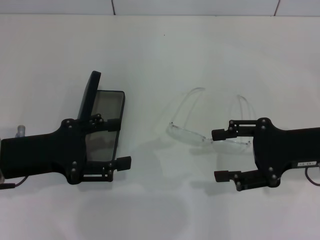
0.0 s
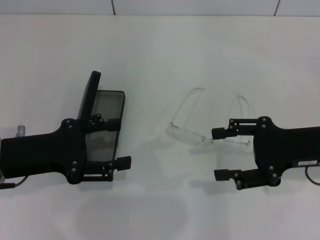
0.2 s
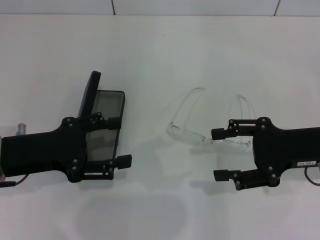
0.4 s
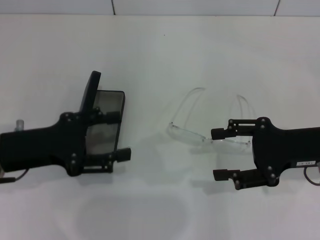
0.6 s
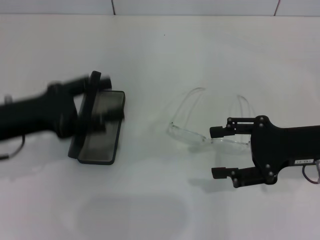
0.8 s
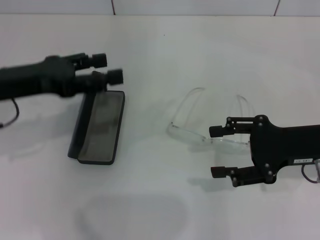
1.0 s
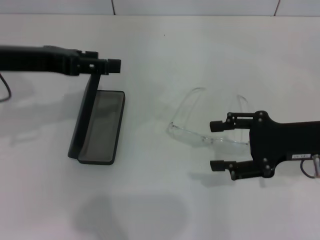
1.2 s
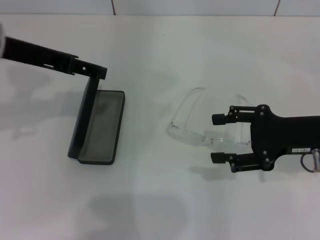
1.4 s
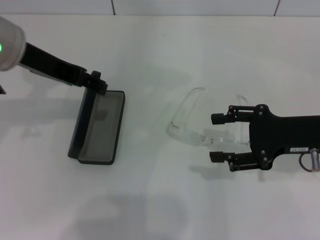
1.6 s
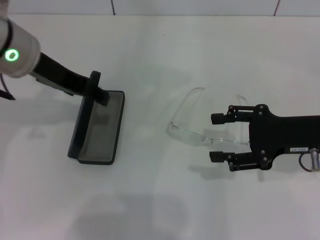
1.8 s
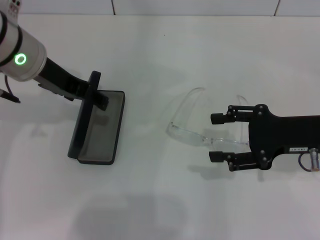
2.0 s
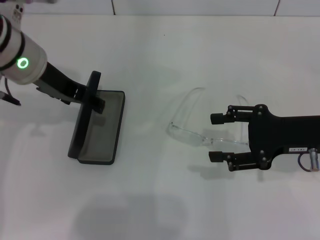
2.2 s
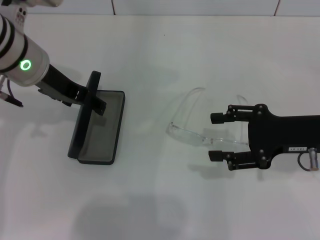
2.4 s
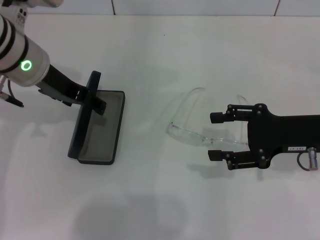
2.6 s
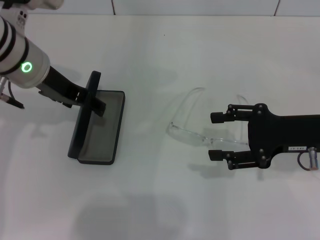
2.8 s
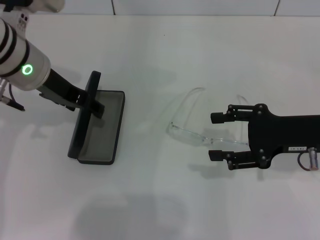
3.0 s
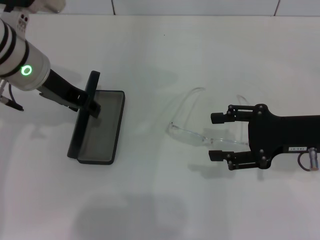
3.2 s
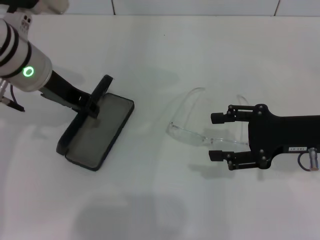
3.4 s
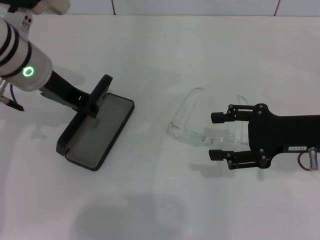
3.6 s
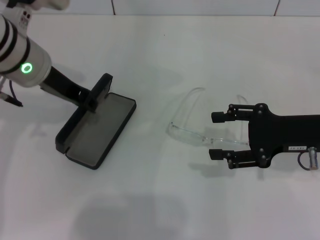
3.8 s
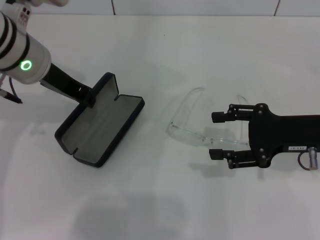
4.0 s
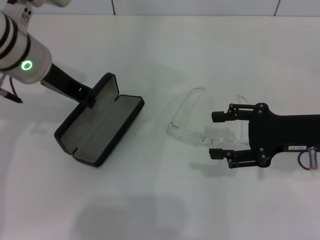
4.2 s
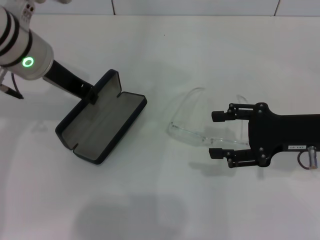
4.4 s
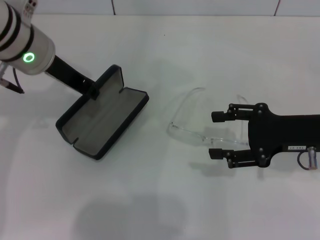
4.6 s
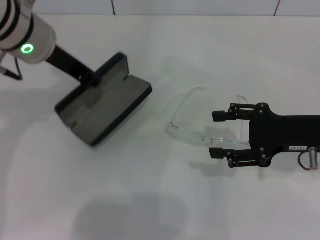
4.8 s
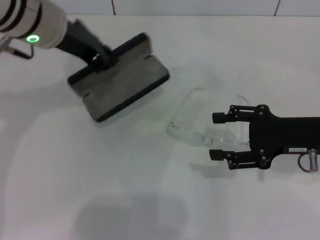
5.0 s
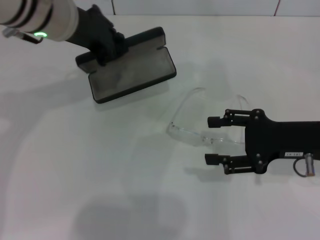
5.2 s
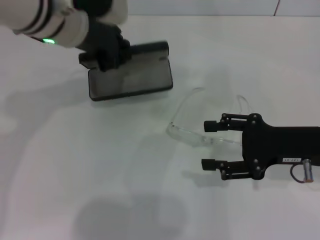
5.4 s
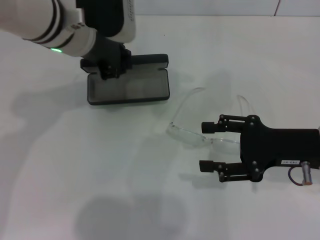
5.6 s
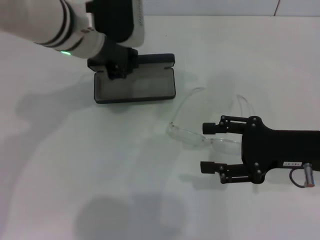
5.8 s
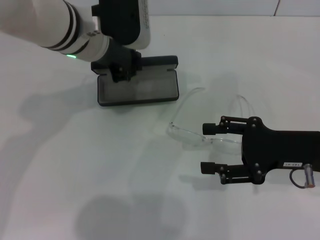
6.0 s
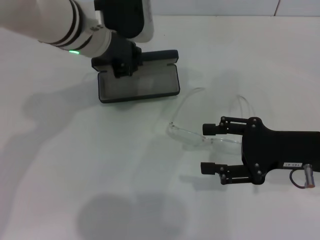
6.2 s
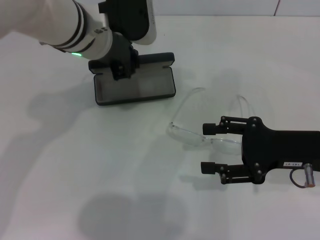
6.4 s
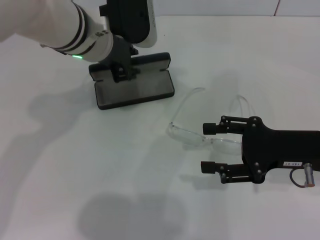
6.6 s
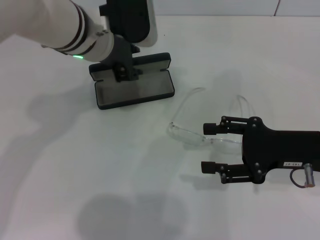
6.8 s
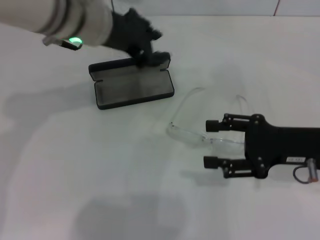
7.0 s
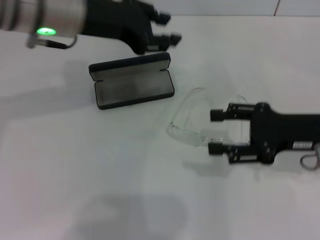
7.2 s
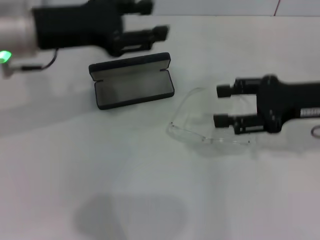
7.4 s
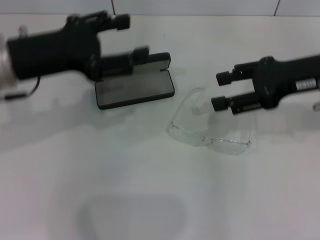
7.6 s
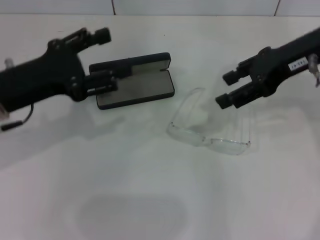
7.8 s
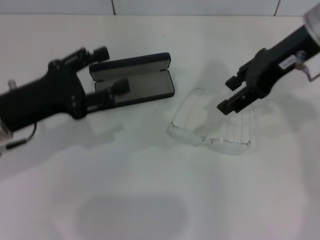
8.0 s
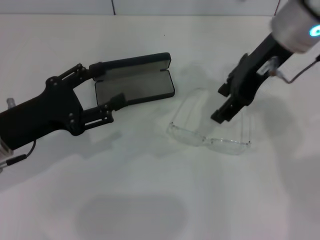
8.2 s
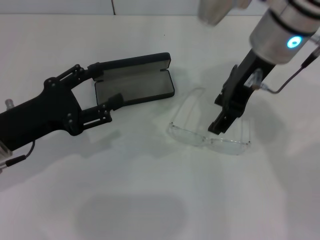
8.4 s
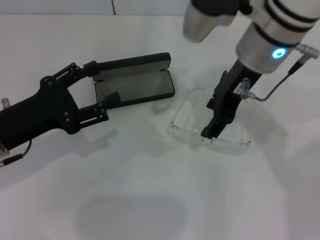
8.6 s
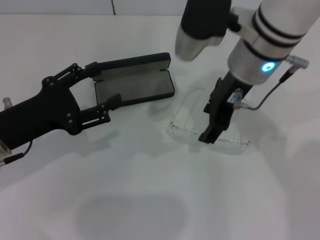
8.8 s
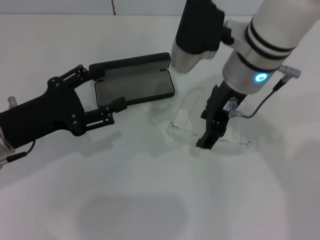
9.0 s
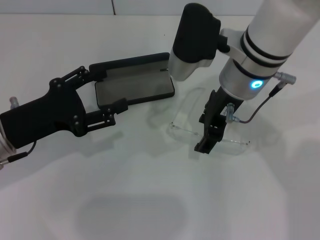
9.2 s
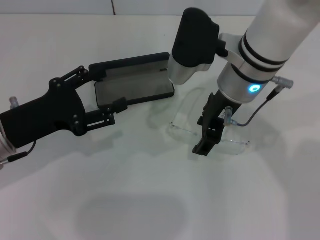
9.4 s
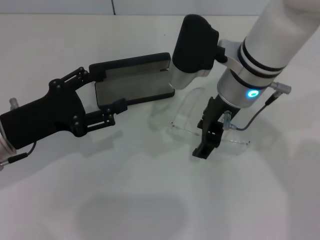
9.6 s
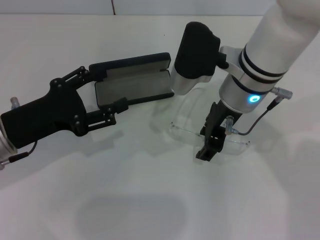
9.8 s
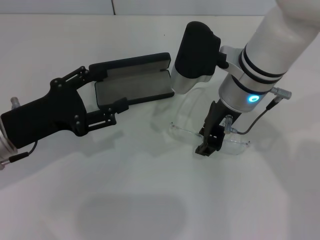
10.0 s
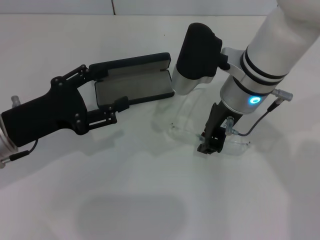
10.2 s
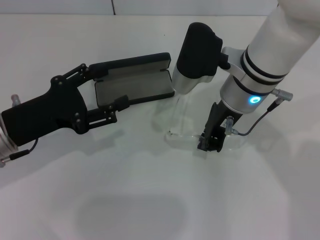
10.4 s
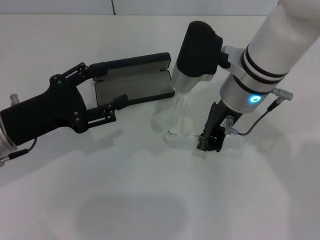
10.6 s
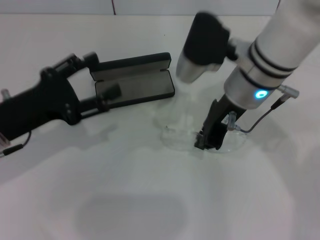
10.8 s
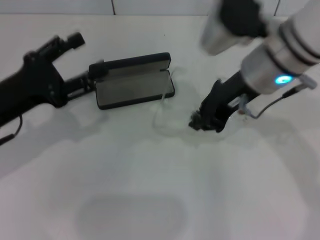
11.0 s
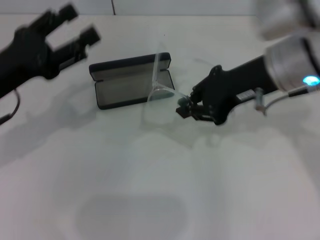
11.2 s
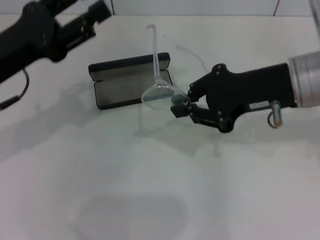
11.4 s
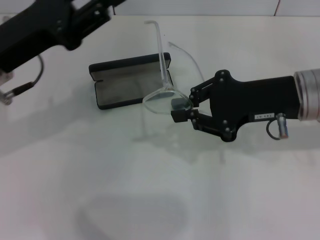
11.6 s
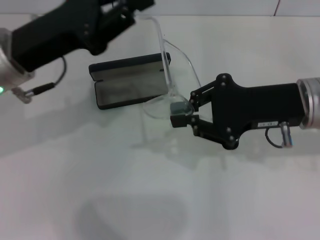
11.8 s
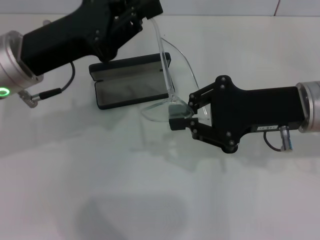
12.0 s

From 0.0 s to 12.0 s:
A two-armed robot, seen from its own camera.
Step, from 0.0 s to 4.0 s: Grab the glasses case with your left hand.
Step, from 4.4 s to 6.4 s: Place the glasses case in the center of the table with your left hand.
Step, from 6.8 s to 10.2 s: Grab the eyeglass frame with your right hand.
From 0.0 s to 1.6 s: The left gripper travels upward, forward and to the right by some 15 cm.
From 1.6 s to 3.0 s: The left gripper is displaced downward by roughly 5 cm.
From 3.0 s to 4.4 s: The left gripper closes.
From 4.4 s to 6.0 s: The left gripper is displaced to the right by roughly 5 cm.
From 6.0 s to 7.6 s: The right gripper heads upward and forward, covering about 10 cm; the left gripper moves to the left and backward, roughly 15 cm, and opens.
From 7.6 s to 9.0 s: The left gripper heads downward, covering about 10 cm. The right gripper shifts about 15 cm to the left.
From 9.0 s to 10.4 s: The right gripper closes up.
From 10.4 s to 12.0 s: The left gripper travels upward and to the right by some 10 cm, and closes its fingers. Meanwhile the right gripper goes about 10 cm to the right and backward.

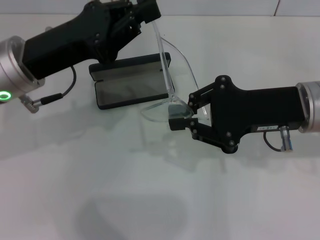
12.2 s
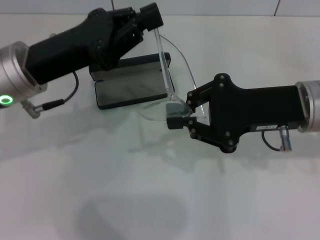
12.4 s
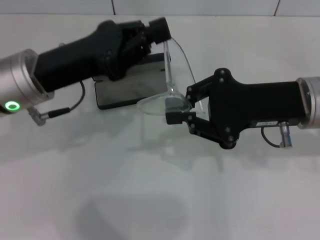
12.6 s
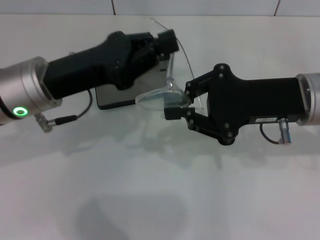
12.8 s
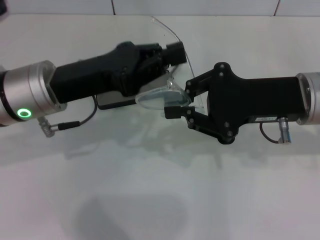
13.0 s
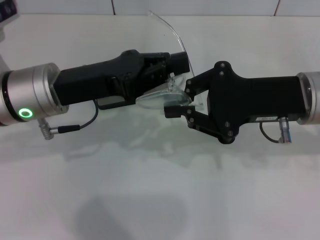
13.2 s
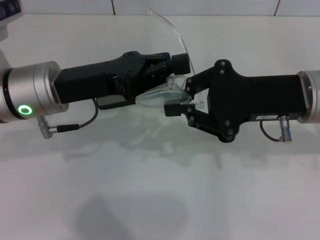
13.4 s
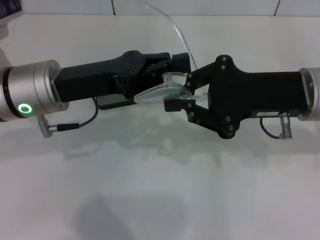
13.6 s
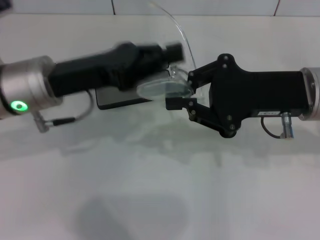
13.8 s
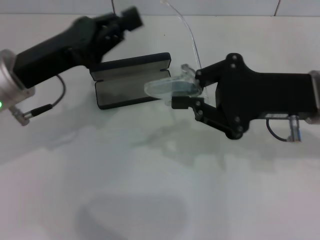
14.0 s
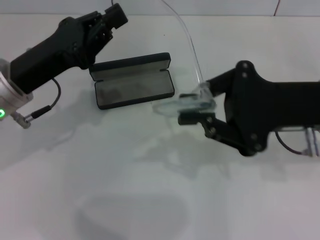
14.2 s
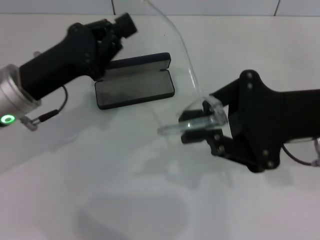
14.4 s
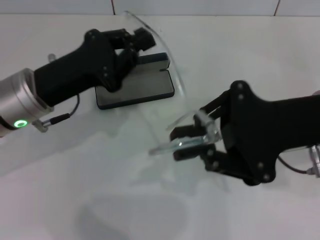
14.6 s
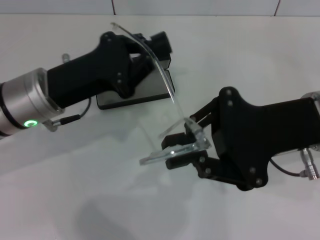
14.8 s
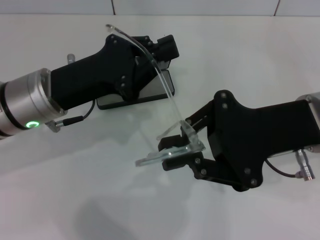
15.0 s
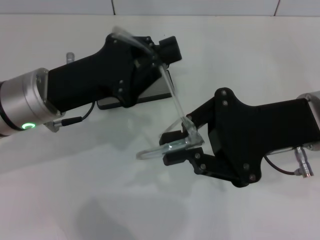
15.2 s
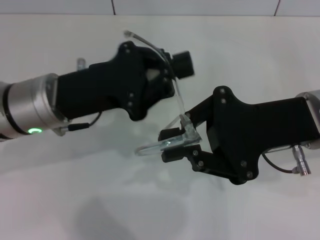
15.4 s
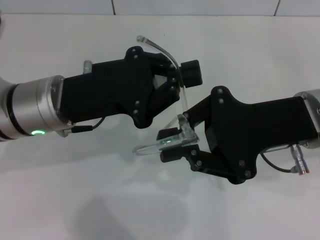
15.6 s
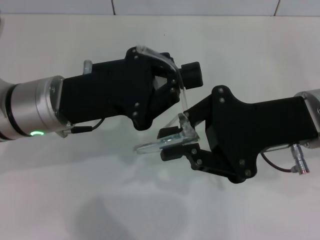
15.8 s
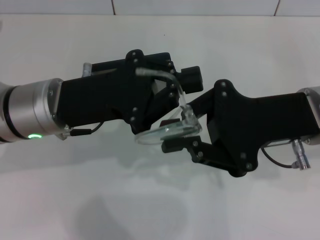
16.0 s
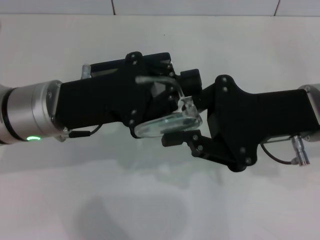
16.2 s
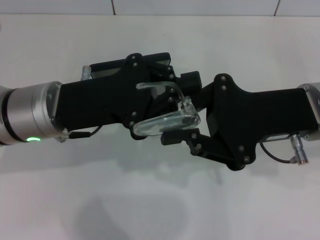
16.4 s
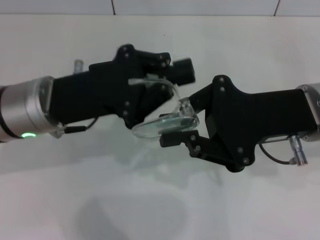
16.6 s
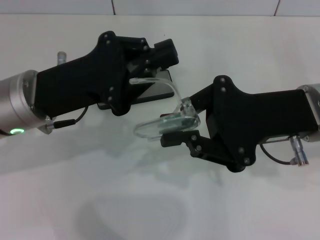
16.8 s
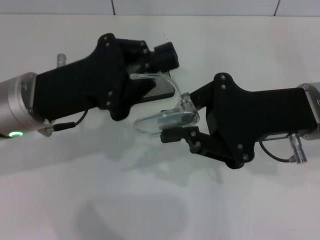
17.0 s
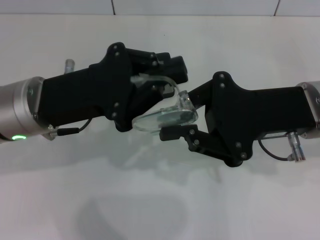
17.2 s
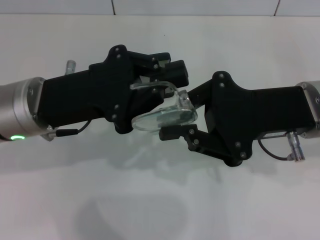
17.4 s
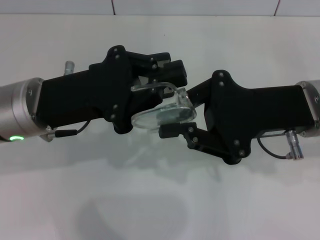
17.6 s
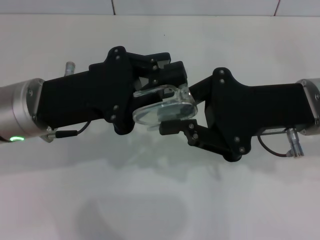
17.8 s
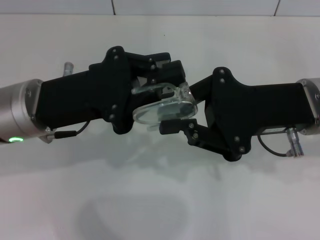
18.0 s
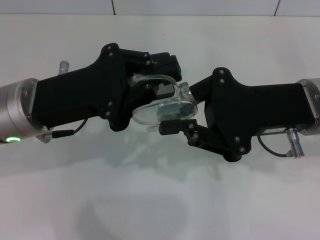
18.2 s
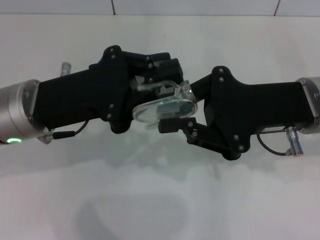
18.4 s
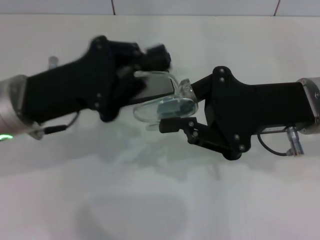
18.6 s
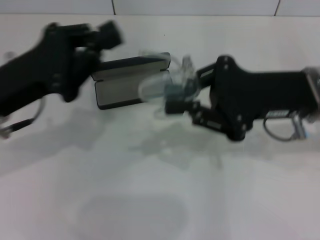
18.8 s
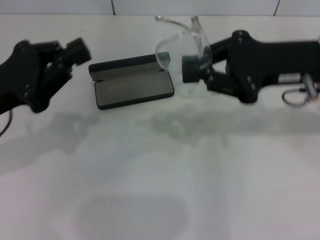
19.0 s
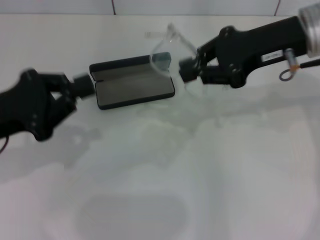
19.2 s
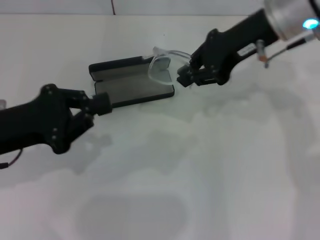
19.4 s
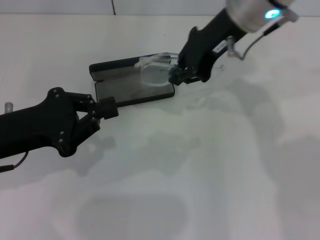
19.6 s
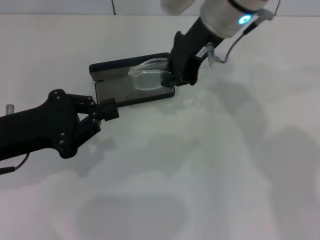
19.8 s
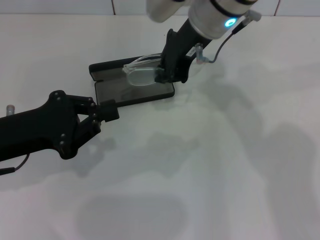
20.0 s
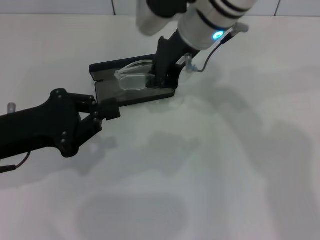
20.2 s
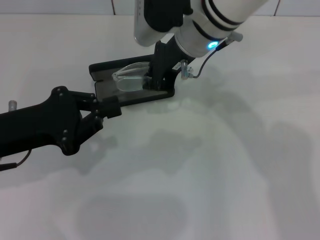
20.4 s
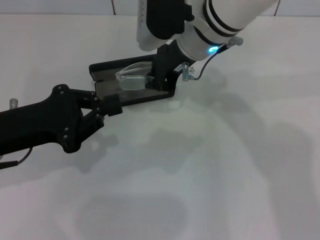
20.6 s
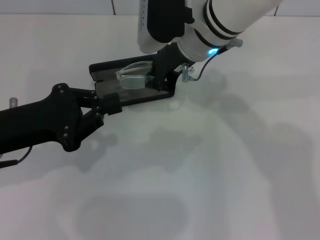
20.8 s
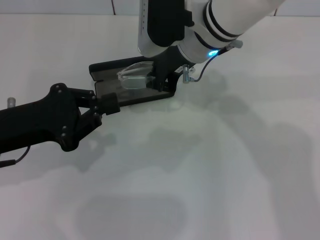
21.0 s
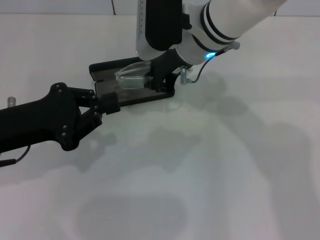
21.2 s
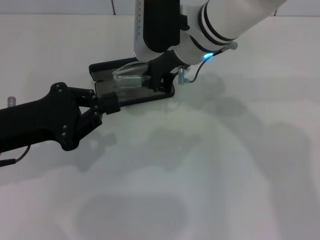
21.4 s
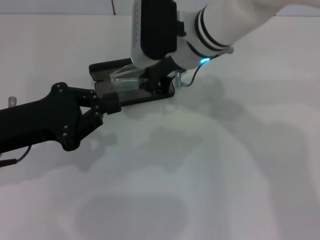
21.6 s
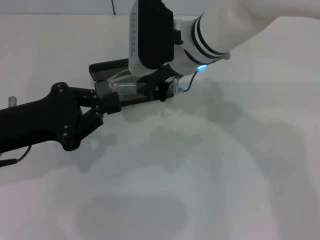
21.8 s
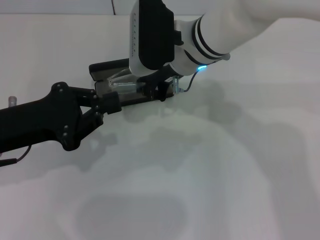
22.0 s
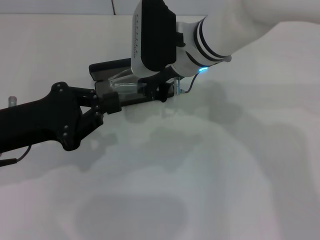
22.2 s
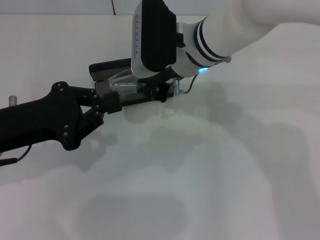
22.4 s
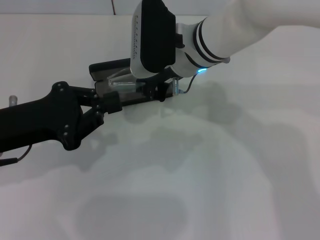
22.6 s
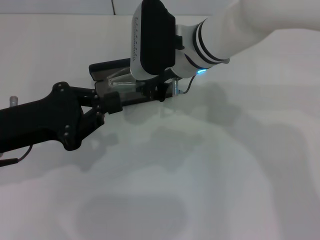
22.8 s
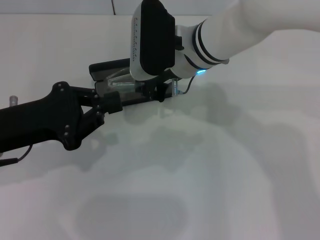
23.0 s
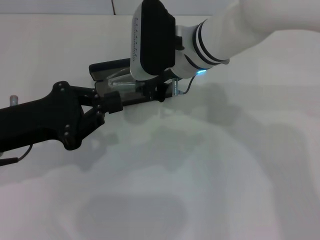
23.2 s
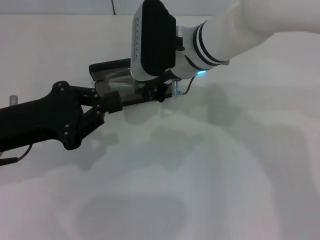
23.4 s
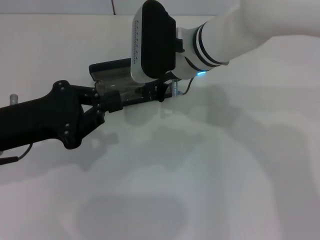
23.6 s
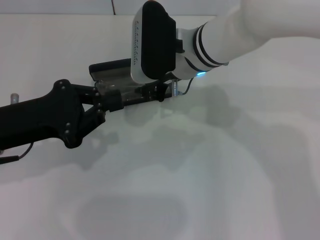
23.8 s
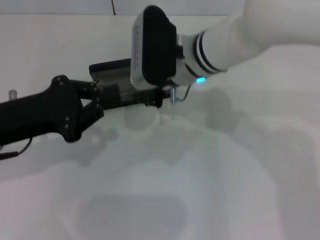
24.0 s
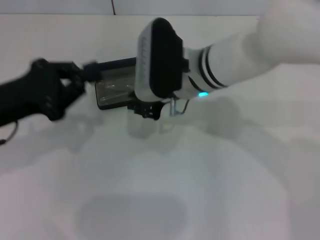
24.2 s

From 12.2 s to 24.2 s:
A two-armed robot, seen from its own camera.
Step, from 12.2 s to 18.4 s: Fold the frame with your left hand.
Step, from 18.6 s to 23.6 s: Put the glasses into the case with your right hand.
From 16.6 s to 18.2 s: Neither gripper changes place.
From 18.2 s to 19.8 s: The left gripper goes roughly 5 cm to the left, while the right gripper moves to the left, forward and upward, approximately 20 cm.
From 19.8 s to 21.2 s: The right gripper heads downward, covering about 5 cm.
From 21.2 s to 22.6 s: The grippers move only a little.
